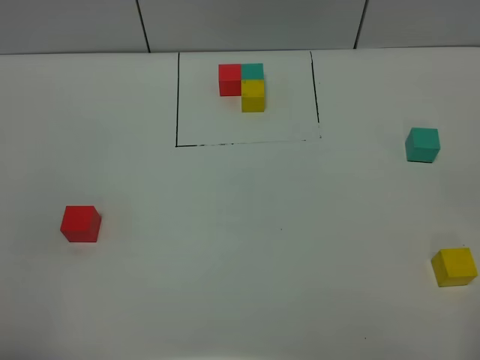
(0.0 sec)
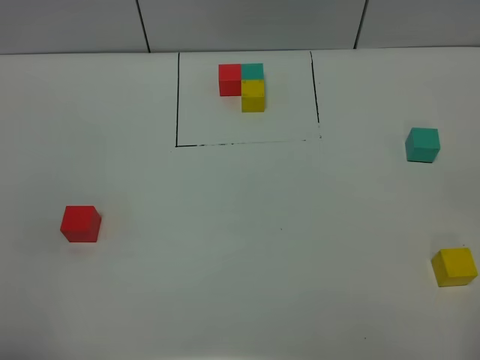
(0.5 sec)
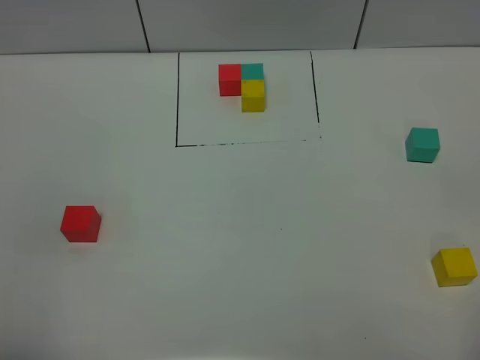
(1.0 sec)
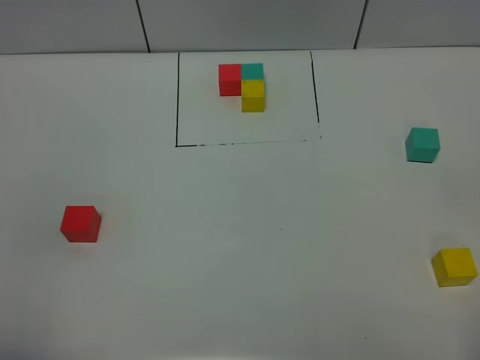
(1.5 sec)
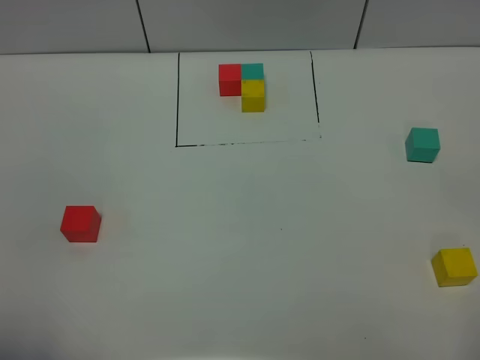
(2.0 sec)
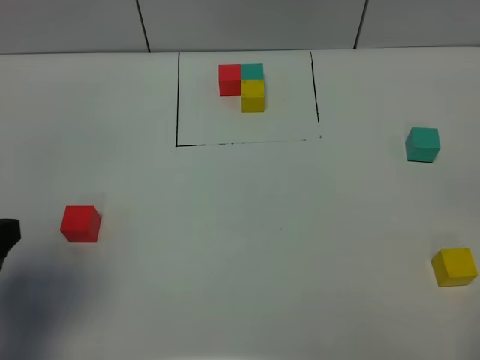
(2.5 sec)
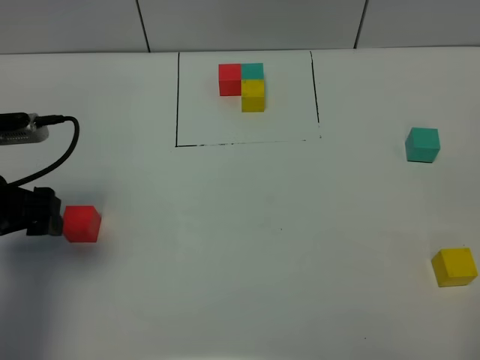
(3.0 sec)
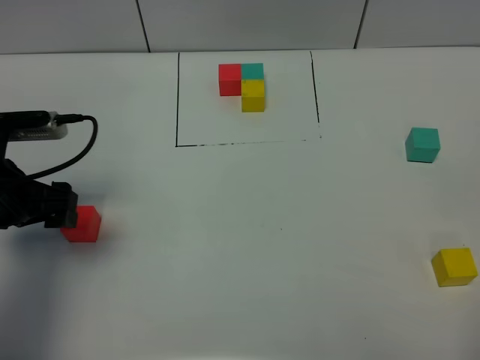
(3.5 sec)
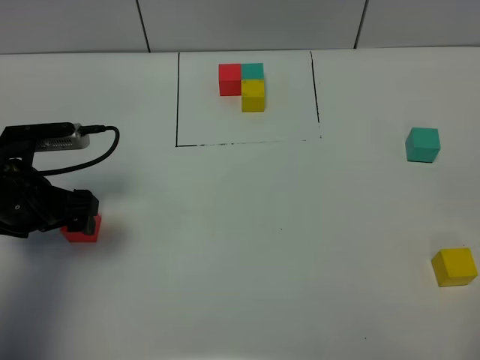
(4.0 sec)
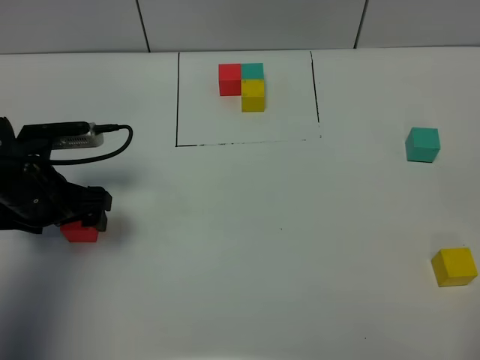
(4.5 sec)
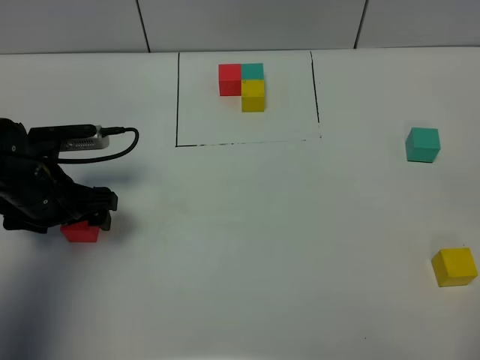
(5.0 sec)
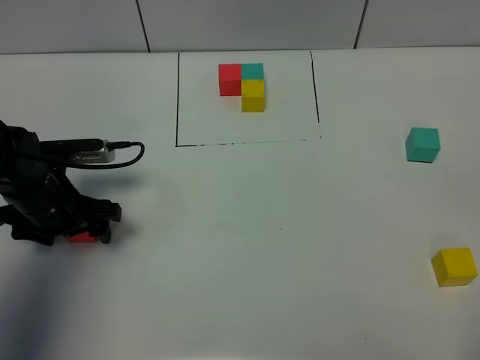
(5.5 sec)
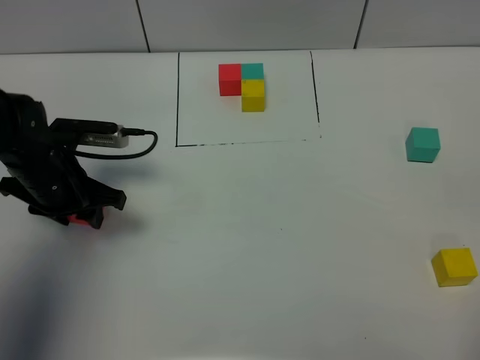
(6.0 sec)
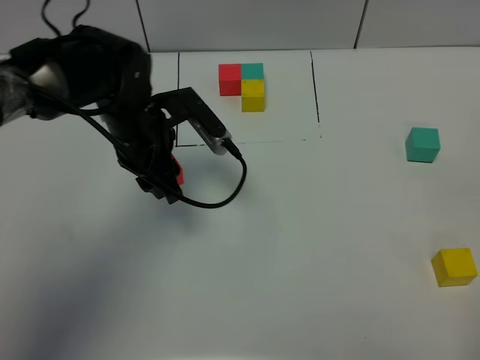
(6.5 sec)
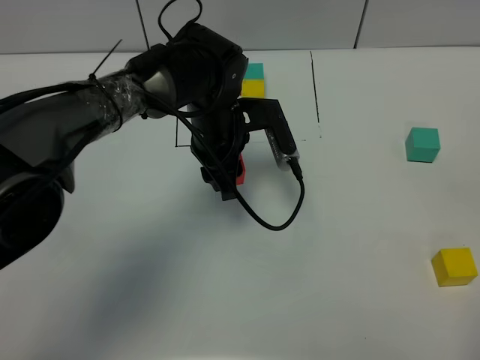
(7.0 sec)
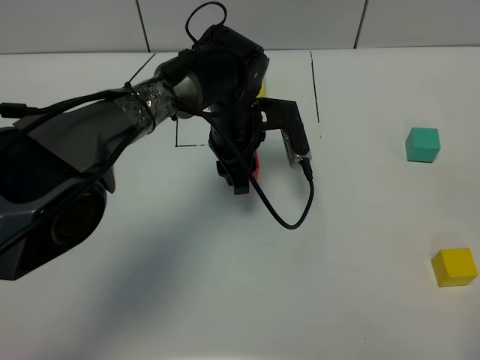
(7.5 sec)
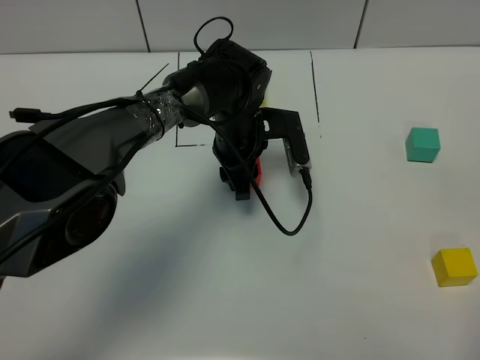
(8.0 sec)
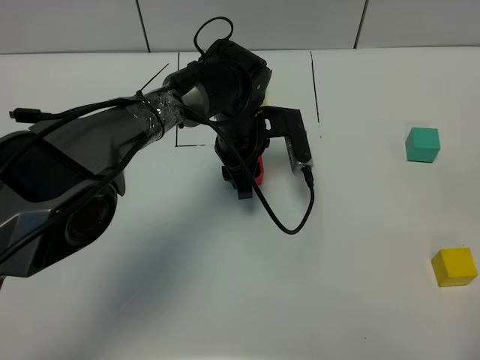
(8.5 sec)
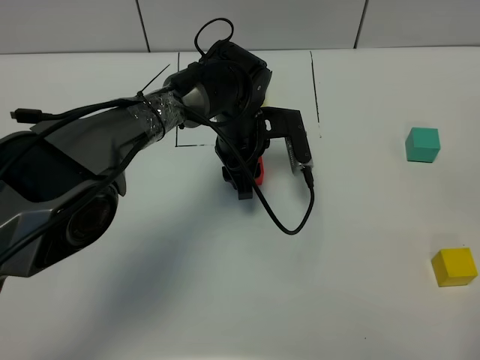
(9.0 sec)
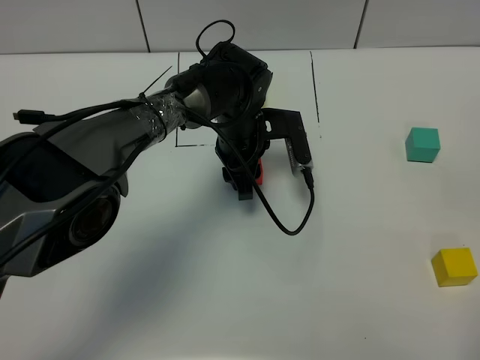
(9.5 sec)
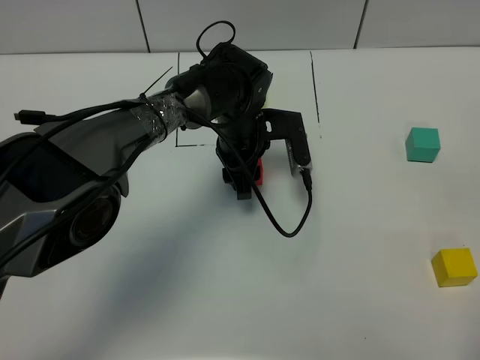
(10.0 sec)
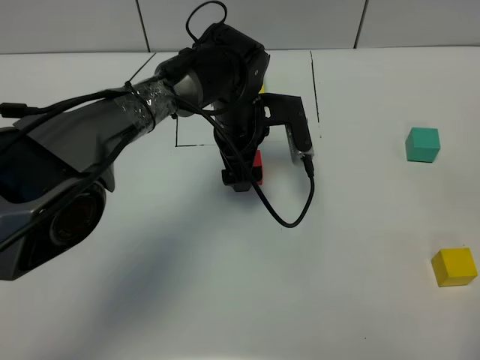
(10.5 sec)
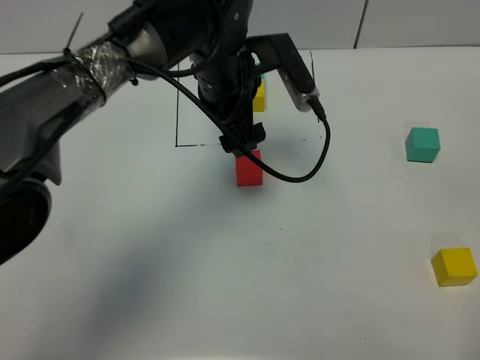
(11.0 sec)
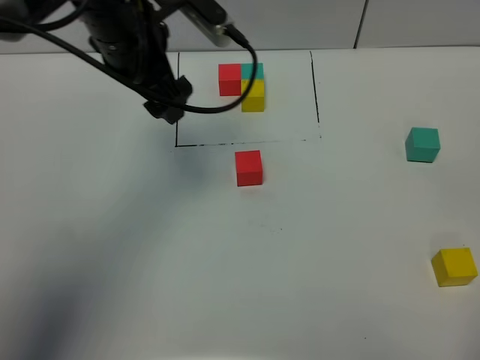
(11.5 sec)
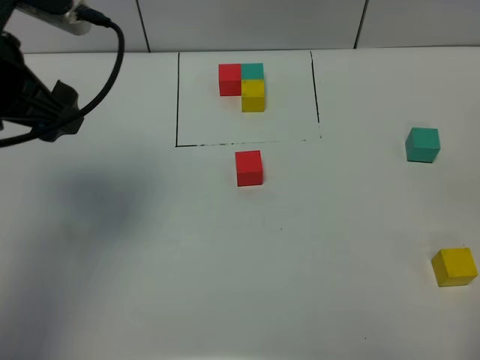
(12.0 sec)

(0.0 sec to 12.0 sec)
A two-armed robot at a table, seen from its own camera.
Task of the whole recording: According to the building block template in front, assemble the scattered blocks together.
Step, 0.0 sec - 10.0 sec: Put the red build block in the center of the table.
2.0 sec - 4.0 sec: The left gripper is displaced forward and downward by some 30 cm.
4.0 sec - 6.0 sec: The left gripper moves roughly 5 cm, and closes.
6.0 sec - 8.0 sec: The left gripper shifts approximately 25 cm to the right.
8.0 sec - 10.0 sec: Both grippers stay about where they are.
10.0 sec - 12.0 sec: The left gripper is displaced upward, to the left and backward by about 35 cm, and opens.

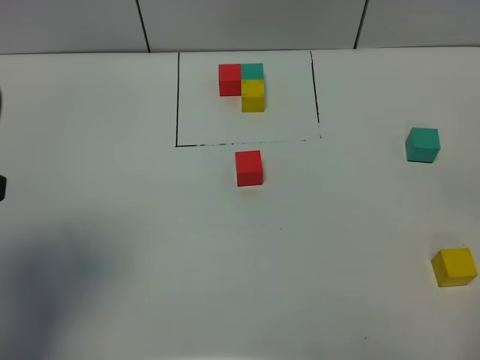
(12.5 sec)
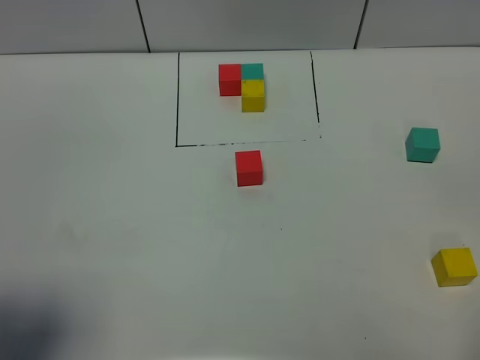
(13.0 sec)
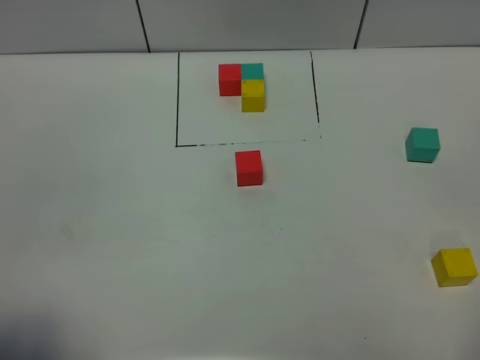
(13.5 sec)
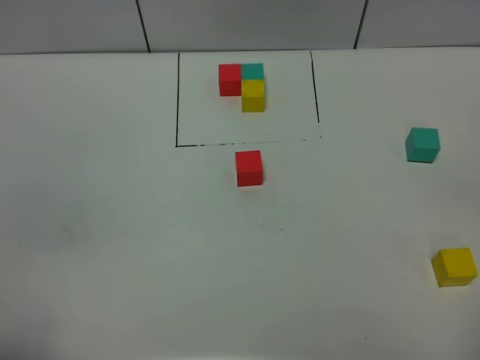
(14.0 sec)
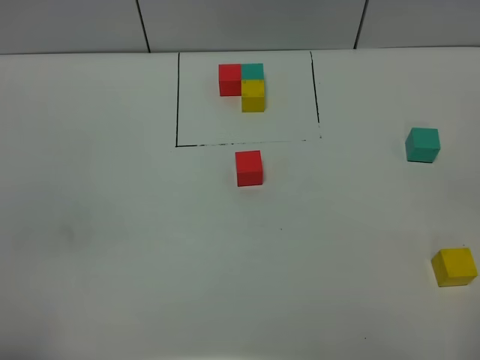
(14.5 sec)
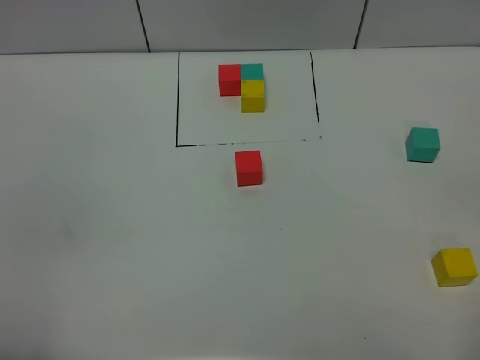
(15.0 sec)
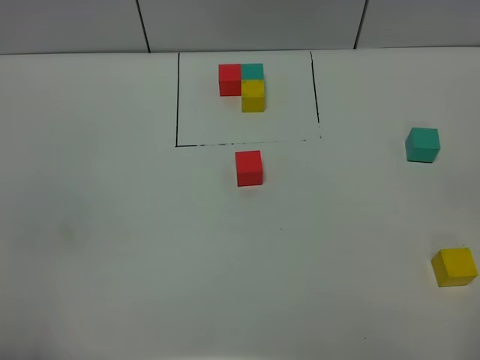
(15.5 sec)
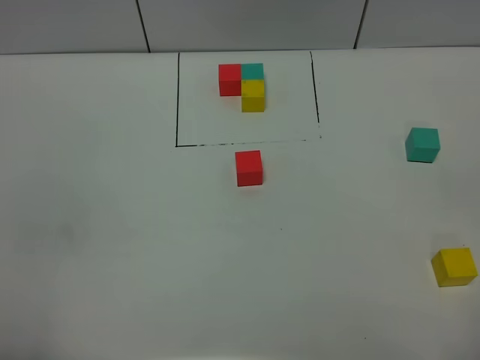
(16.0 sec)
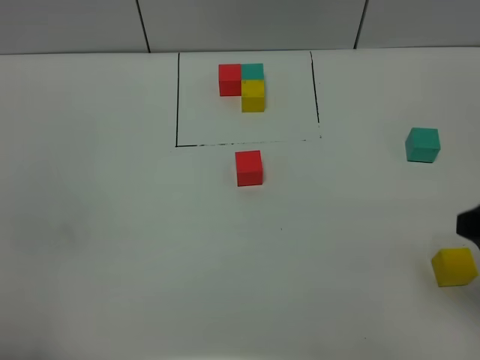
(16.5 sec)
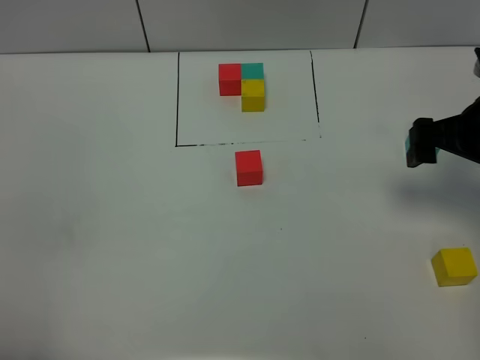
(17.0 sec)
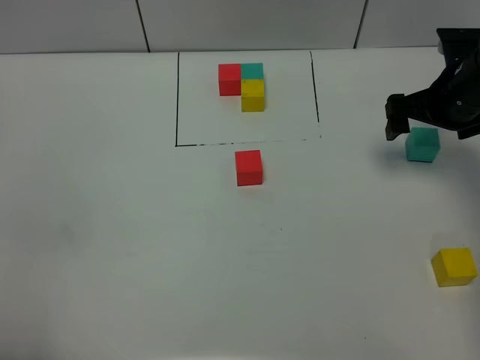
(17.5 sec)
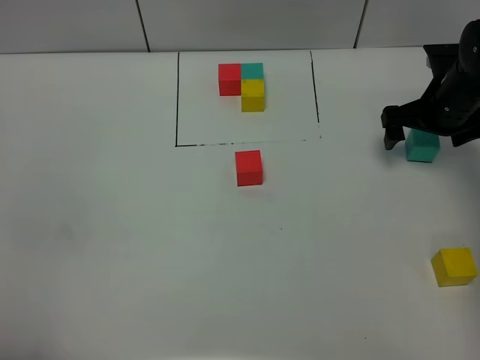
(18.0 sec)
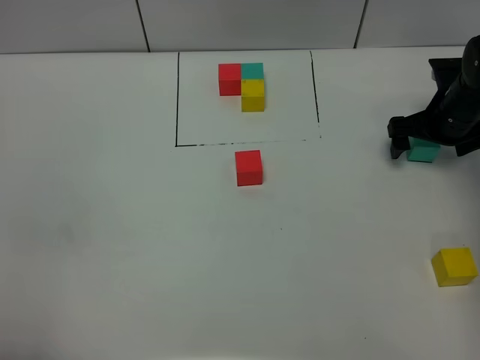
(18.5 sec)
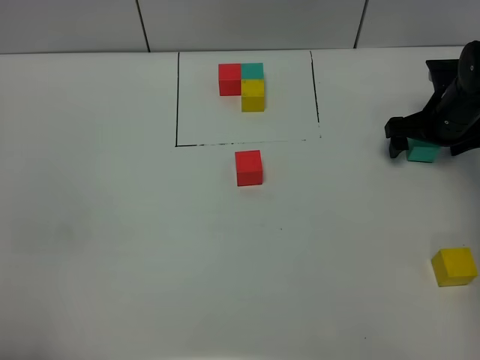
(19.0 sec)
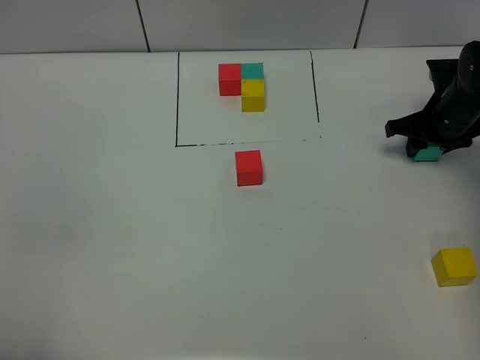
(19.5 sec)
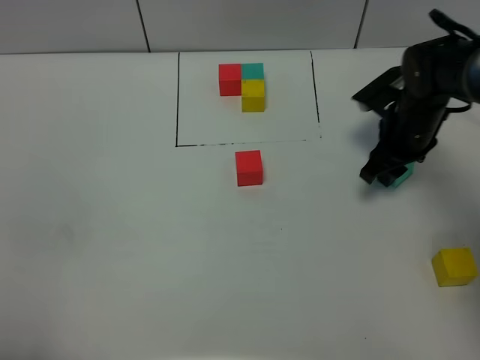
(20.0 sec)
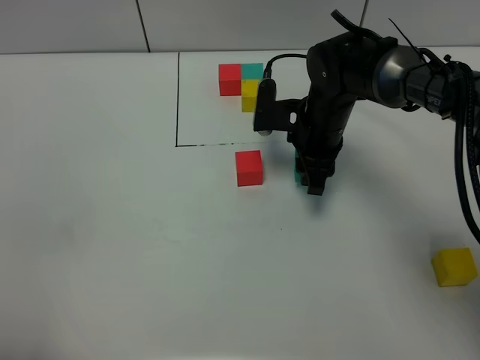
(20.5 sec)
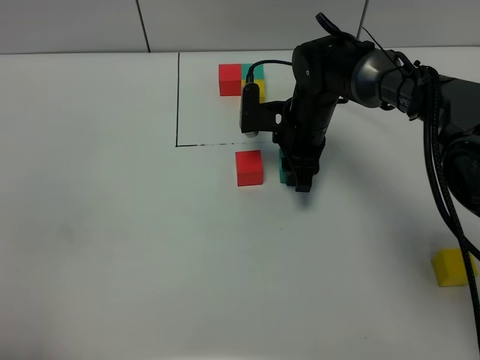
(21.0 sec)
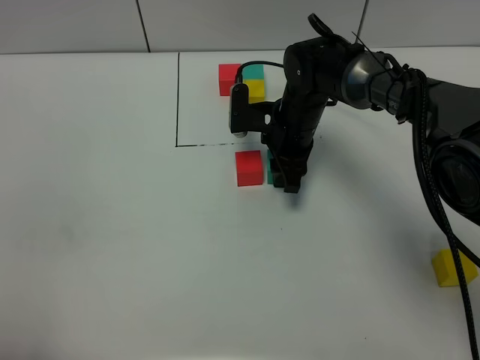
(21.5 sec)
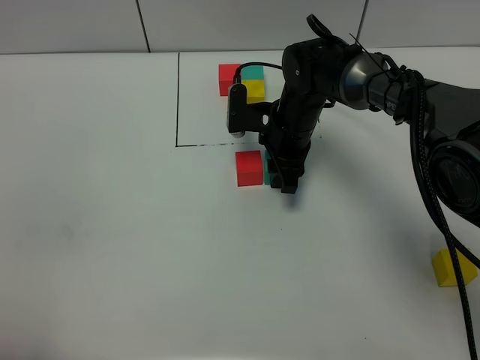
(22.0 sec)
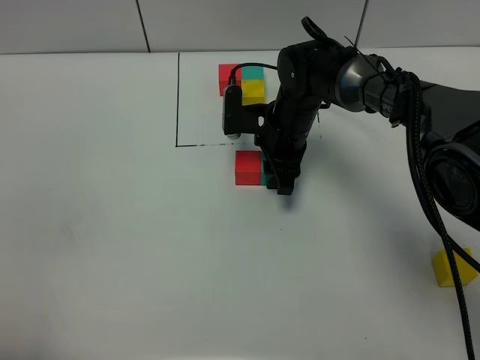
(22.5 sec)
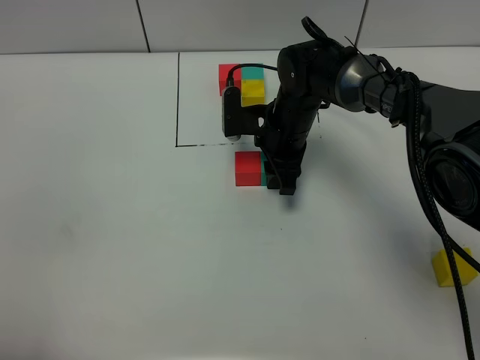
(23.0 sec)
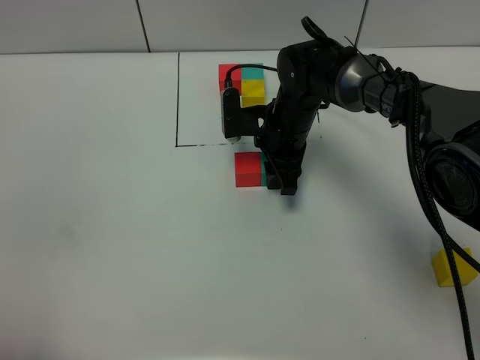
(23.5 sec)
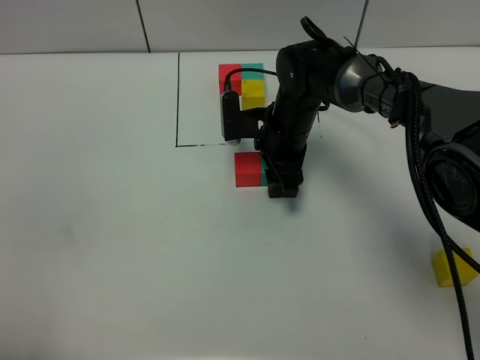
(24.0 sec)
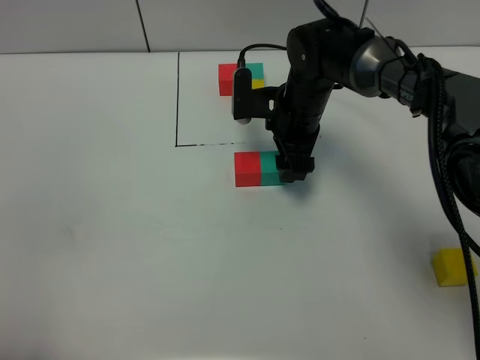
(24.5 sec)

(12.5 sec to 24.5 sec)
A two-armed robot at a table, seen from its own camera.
Task of the whole recording: According to the building block template in front, assemble the scattered blocks together.
Step, 12.5 sec - 24.0 sec: Put the green build block on the right of the red build block.
12.5 sec - 14.5 sec: The left gripper goes roughly 15 cm backward and downward.
14.5 sec - 16.5 sec: The right gripper travels forward by roughly 15 cm.
16.5 sec - 18.5 sec: The right gripper moves forward and downward, about 30 cm.
18.5 sec - 20.5 sec: The right gripper shifts approximately 20 cm to the left, and closes its fingers.
20.5 sec - 22.5 sec: The right gripper ends up approximately 5 cm from where it was.
22.5 sec - 24.5 sec: The right gripper opens its fingers.

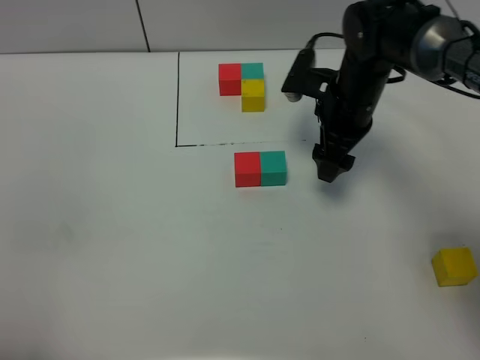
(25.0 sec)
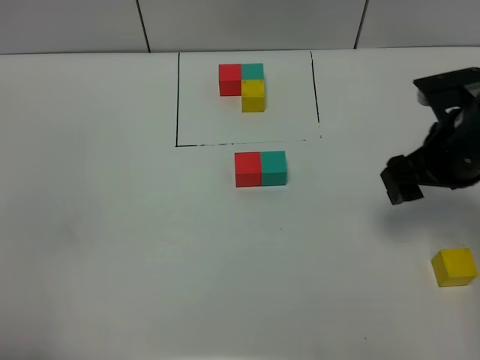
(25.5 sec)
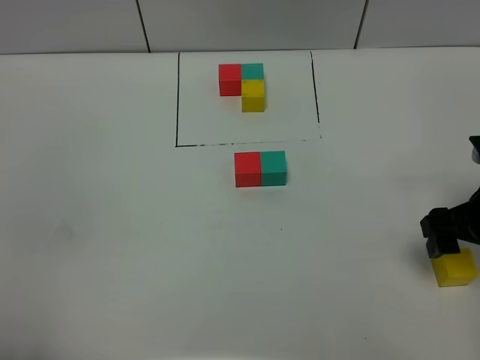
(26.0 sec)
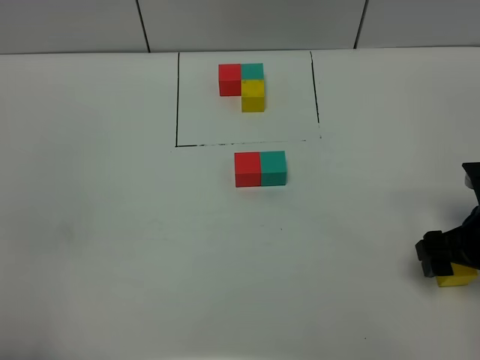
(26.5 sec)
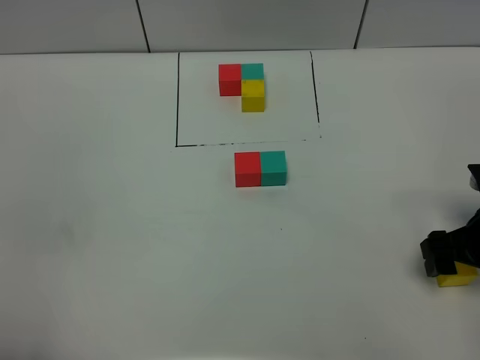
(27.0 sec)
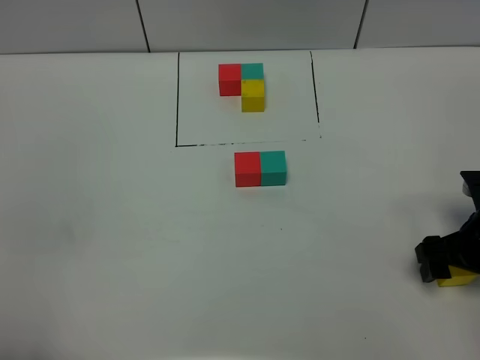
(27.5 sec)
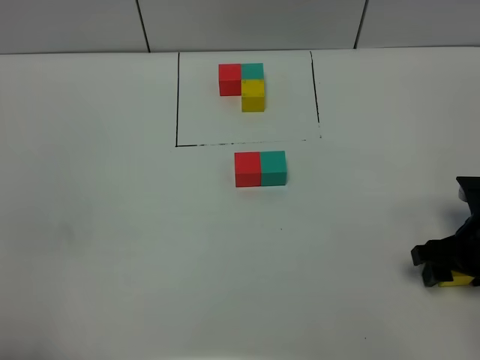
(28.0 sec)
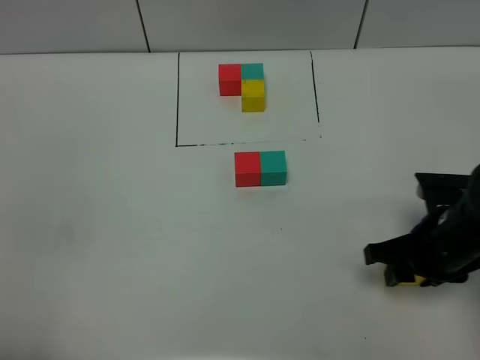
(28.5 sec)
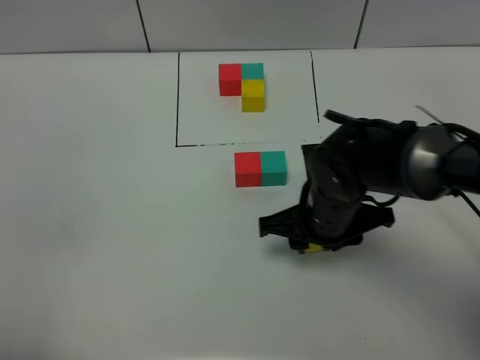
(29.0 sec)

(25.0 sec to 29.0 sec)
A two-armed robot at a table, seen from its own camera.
Task of the whole recording: According to the building block template in front, assemble the scattered blocks together.
25.0 sec - 27.0 sec: The right gripper heads backward and to the right, covering about 20 cm.
27.0 sec - 29.0 sec: The right gripper moves to the left, about 20 cm, and closes.
